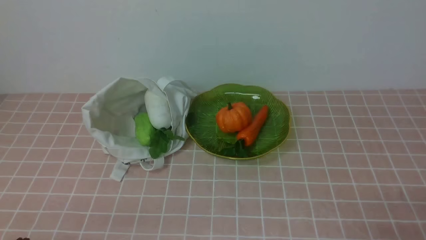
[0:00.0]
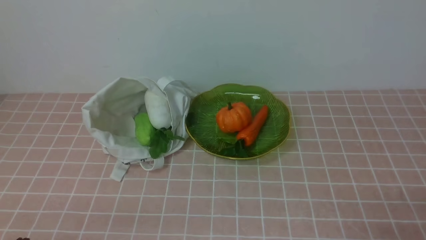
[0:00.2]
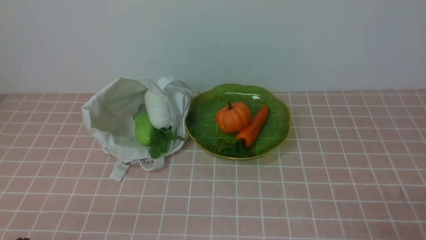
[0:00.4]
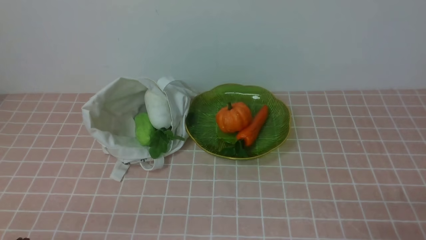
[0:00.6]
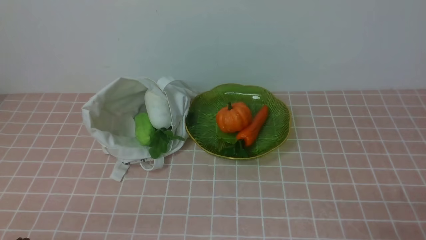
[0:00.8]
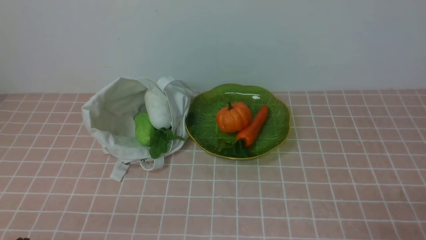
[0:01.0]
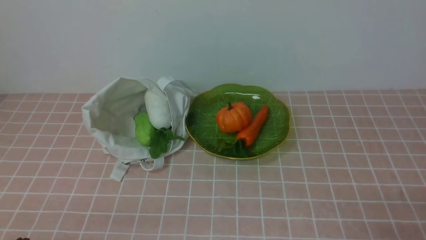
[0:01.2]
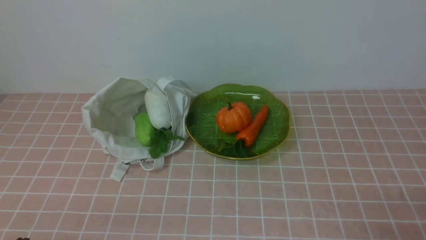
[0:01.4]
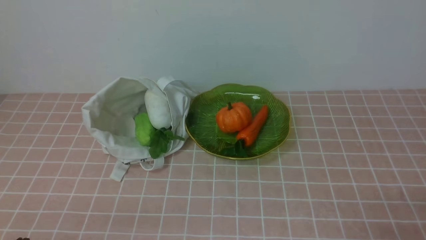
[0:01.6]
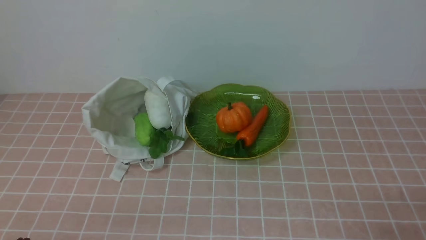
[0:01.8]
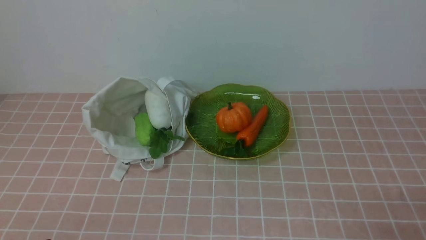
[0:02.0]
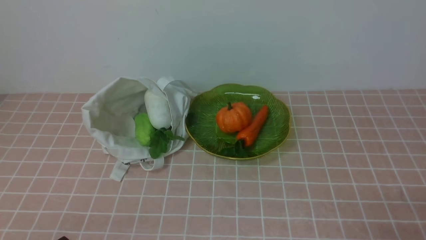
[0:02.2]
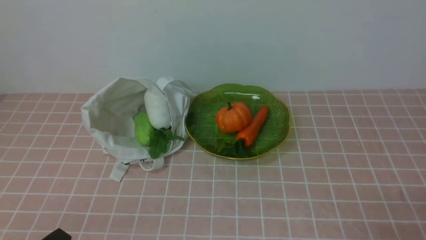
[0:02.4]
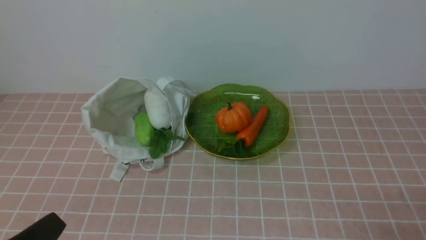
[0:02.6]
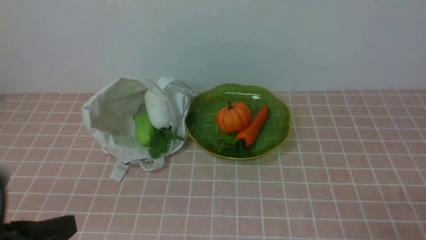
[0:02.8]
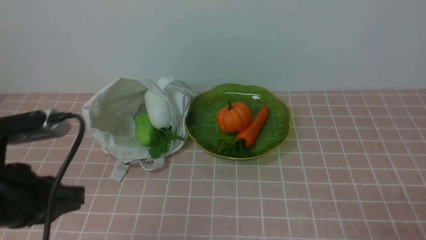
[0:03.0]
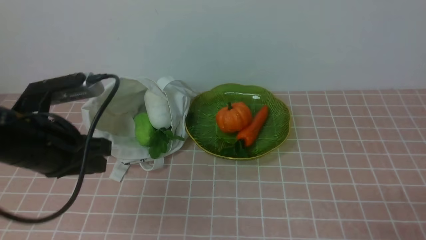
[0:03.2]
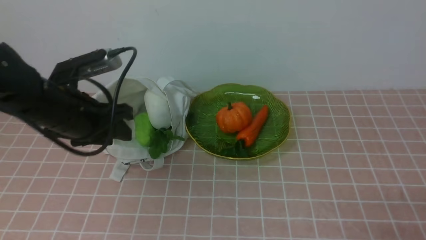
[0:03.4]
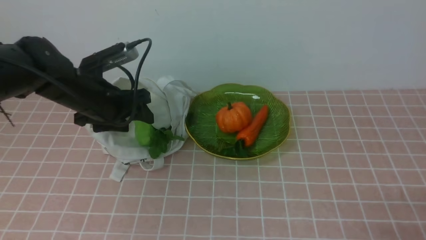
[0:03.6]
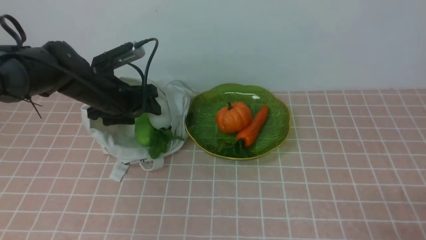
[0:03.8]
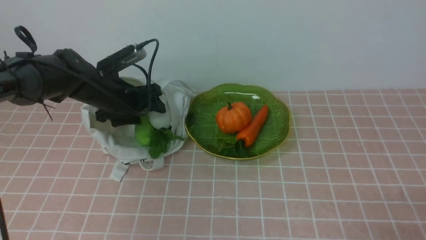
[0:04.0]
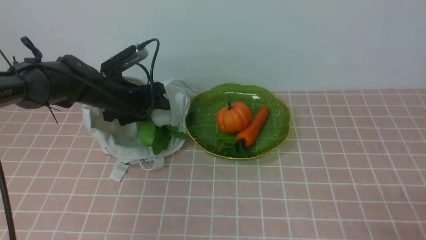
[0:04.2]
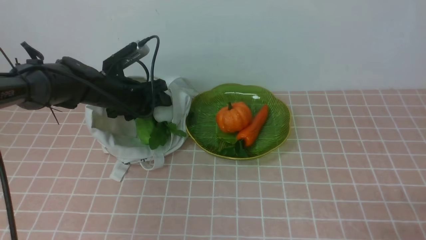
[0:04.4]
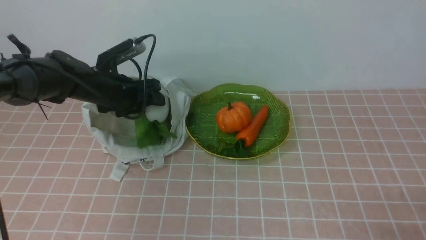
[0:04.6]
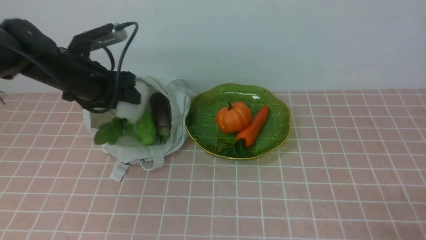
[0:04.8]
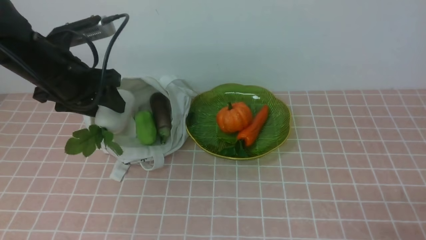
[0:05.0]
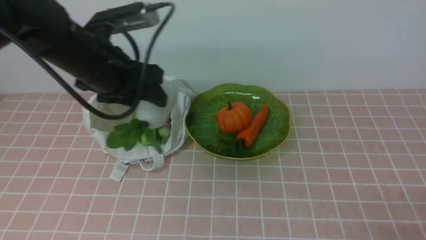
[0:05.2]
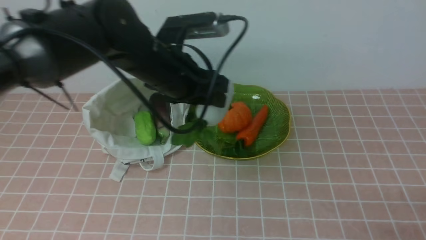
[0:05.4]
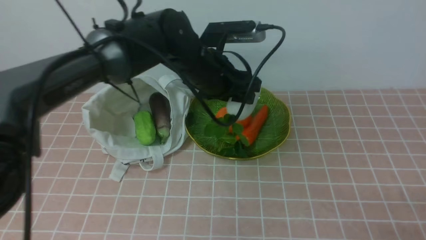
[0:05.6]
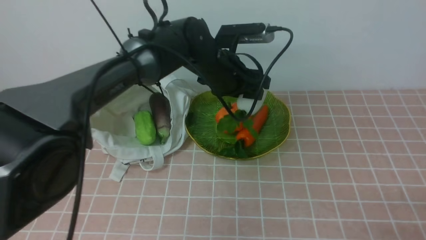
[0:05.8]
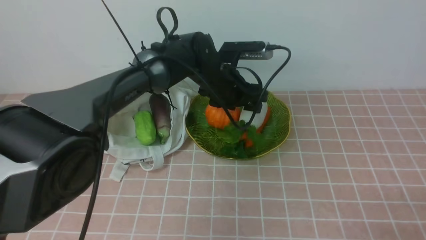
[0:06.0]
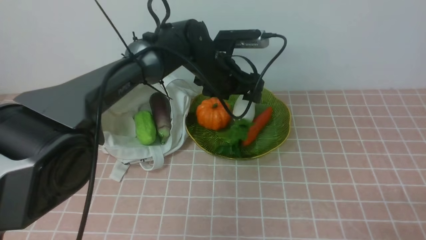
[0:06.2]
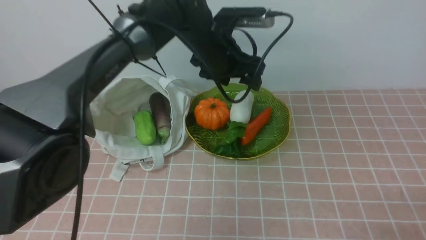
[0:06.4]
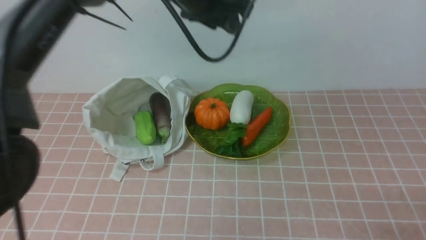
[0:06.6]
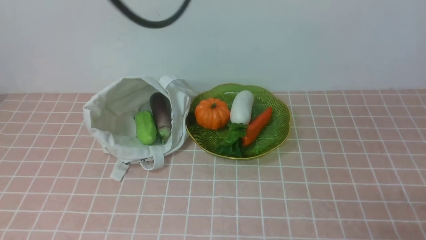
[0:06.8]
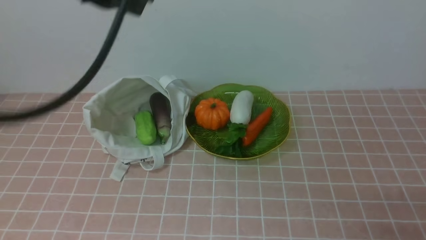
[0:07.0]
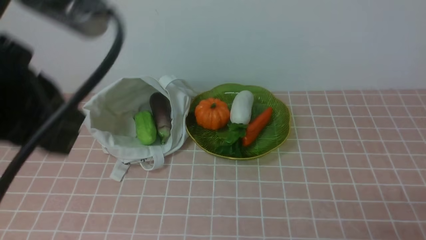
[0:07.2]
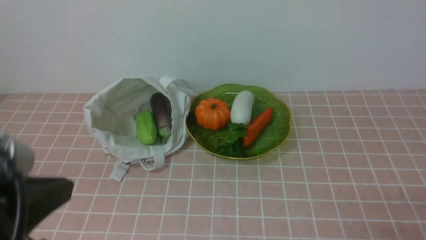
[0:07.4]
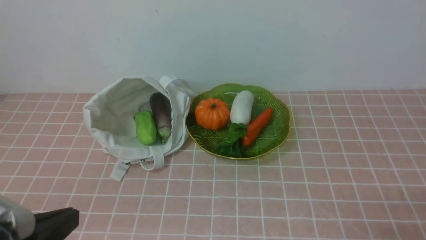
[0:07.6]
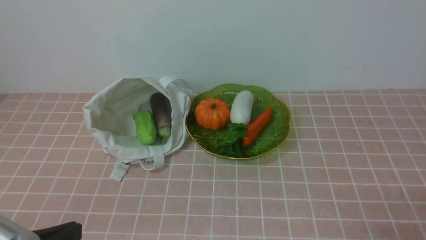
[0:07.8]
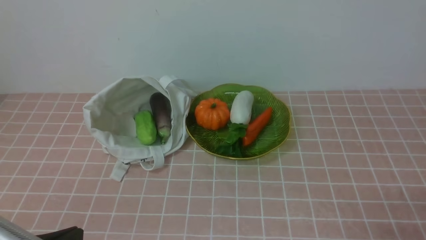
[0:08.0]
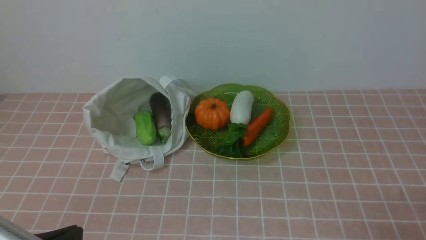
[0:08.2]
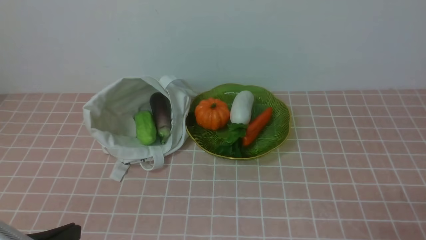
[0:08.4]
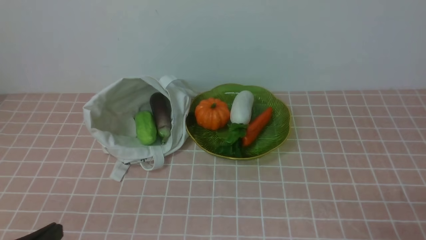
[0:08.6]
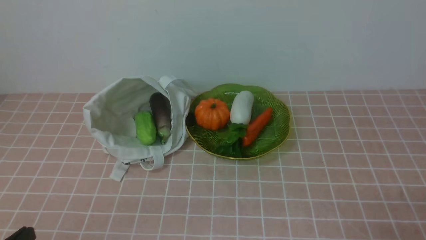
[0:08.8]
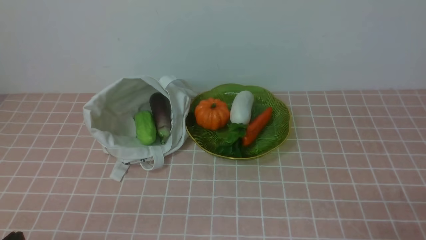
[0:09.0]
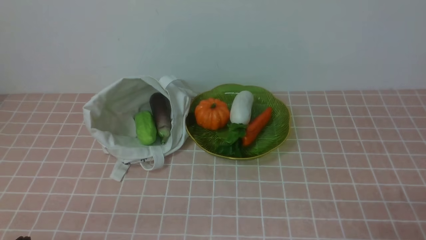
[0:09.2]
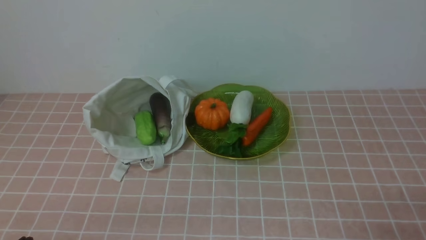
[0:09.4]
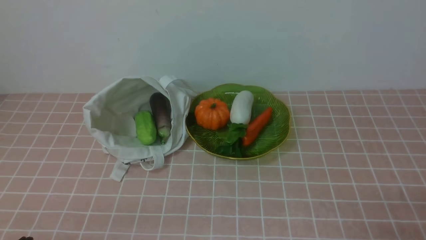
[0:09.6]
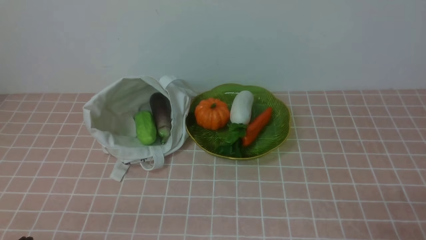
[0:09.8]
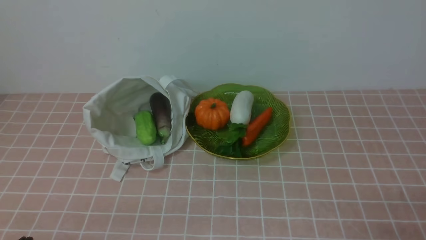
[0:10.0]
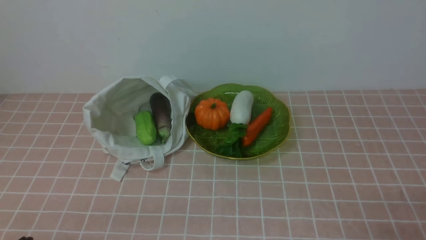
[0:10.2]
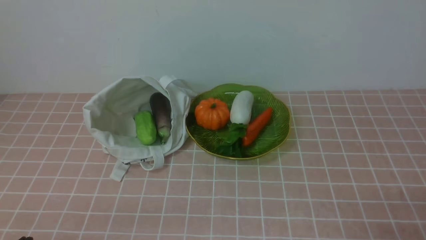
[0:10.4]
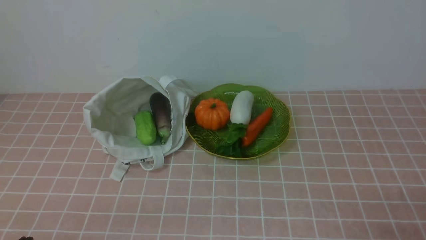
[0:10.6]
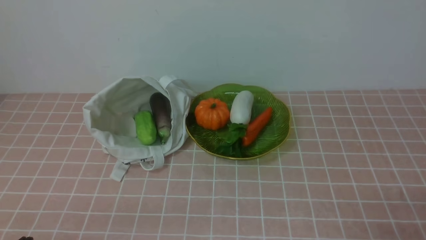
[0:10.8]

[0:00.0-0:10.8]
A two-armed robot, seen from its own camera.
Task of the whole recording: take vegetables from bag on pink coffee tablecloth place on plate.
Step, 0:00.0 to 0:04.2: Grasp the radish with left gripper.
Step, 0:04.4 to 0:06.2: Place the radish on the plate with left gripper.
0:01.6 to 0:03.0: The left gripper moves upward and forward, approximately 15 cm.
0:03.0 to 0:04.6: The left gripper heads forward, covering some 30 cm, and opens up.
0:04.6 to 0:06.2: The left gripper is displaced to the right by approximately 20 cm.
0:06.2 to 0:07.8: The left gripper goes approximately 40 cm backward and to the left, and closes.
0:07.8 to 0:09.2: The left gripper shifts approximately 10 cm downward.
0:09.2 to 0:10.8: Neither gripper changes place.
